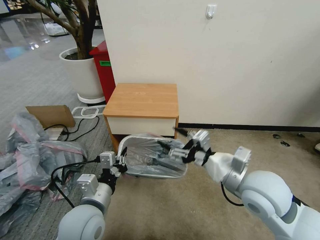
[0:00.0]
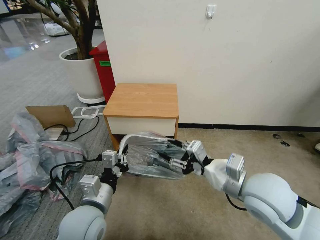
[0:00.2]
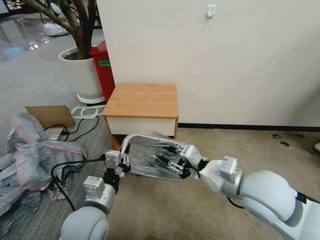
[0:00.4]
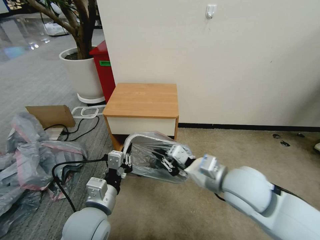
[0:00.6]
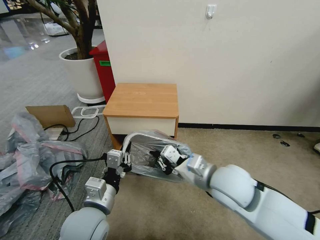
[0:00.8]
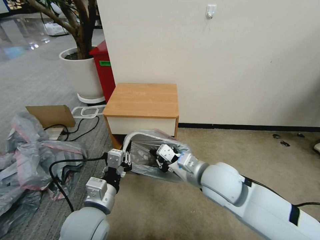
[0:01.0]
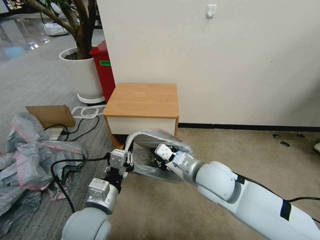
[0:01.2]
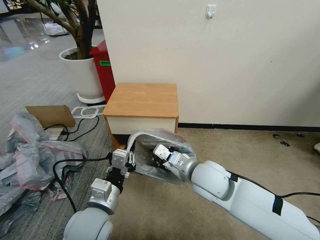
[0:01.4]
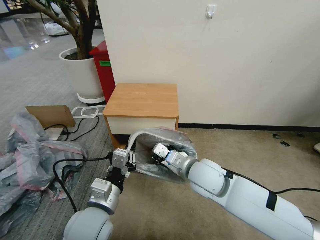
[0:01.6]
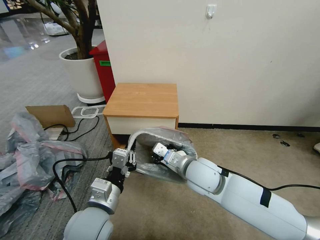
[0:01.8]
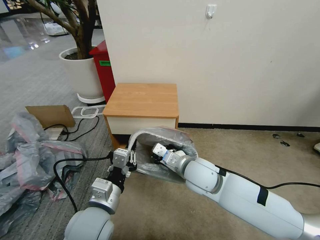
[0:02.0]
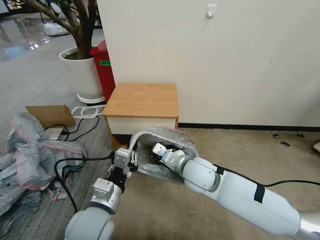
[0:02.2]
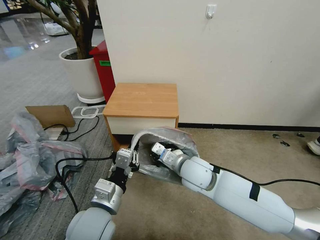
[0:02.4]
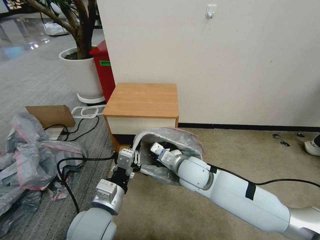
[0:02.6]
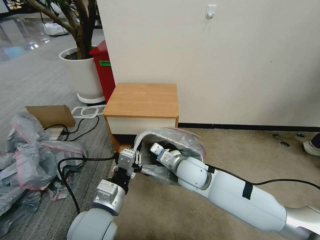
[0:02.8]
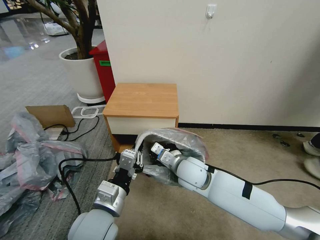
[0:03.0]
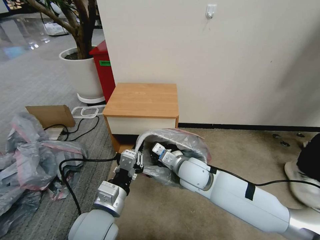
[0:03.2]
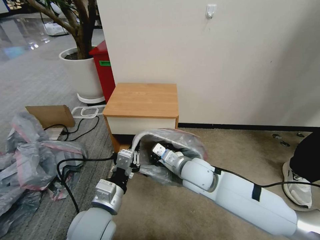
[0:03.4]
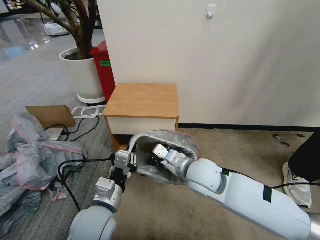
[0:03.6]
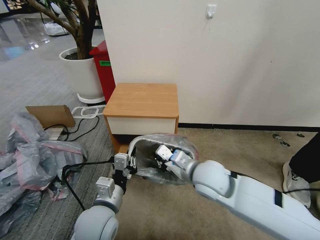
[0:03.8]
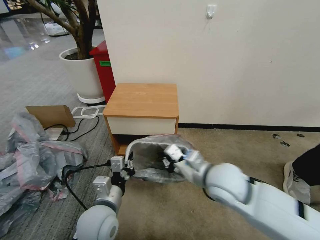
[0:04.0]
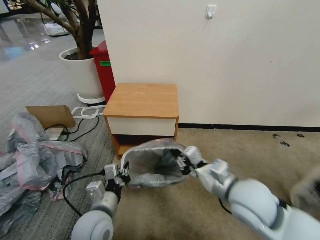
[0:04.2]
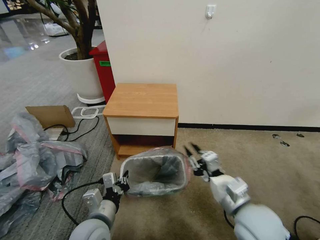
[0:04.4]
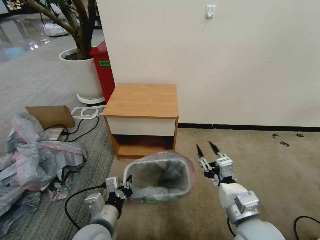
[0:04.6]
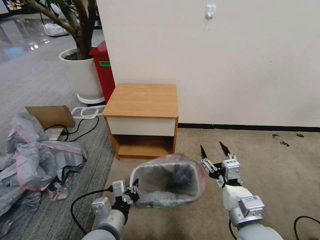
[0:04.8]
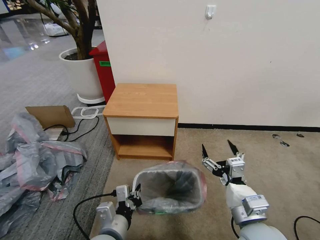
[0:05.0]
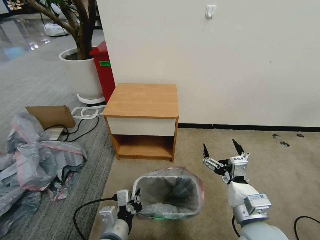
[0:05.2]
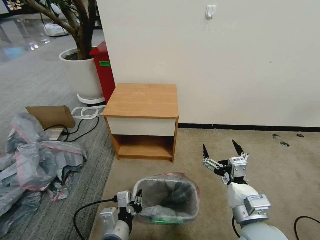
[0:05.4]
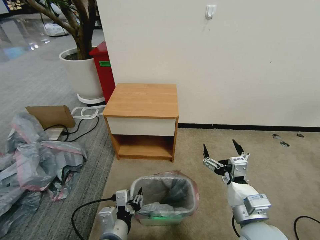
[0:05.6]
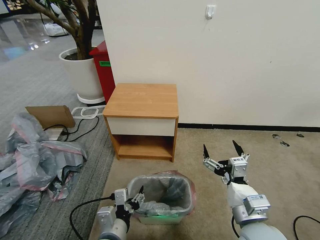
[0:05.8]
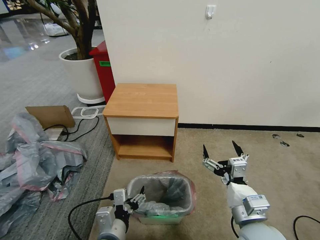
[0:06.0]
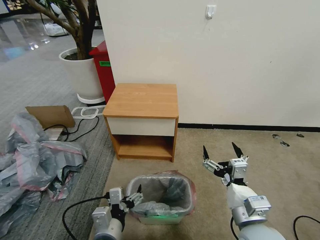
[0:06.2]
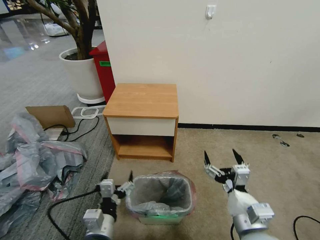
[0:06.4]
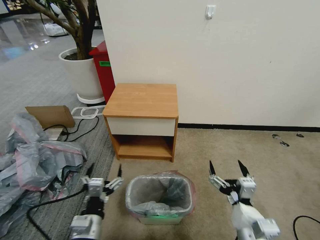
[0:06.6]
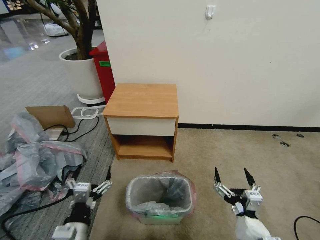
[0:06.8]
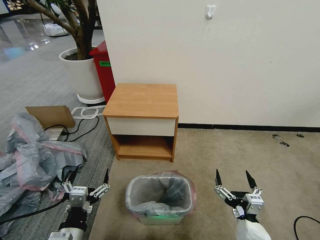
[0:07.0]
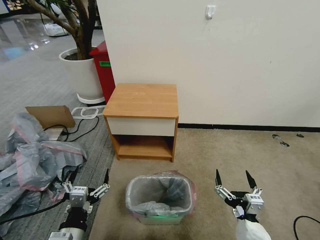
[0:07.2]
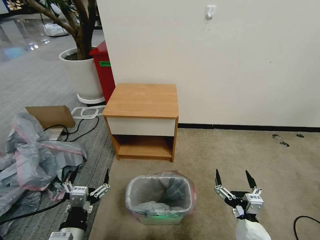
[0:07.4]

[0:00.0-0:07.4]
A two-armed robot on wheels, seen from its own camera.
Task of the whole recording: Pick up the garbage bag from the table and place it over the trash can.
0:00.0 to 0:01.4: The right gripper is displaced to the left by some 10 cm, and closes up.
0:01.4 to 0:03.0: The right gripper is displaced downward by approximately 5 cm.
0:03.0 to 0:04.4: The left gripper is displaced downward by approximately 5 cm. Meanwhile the right gripper moves backward and to the right, approximately 20 cm.
0:04.4 to 0:06.0: The right gripper opens up, while the left gripper moves roughly 5 cm, and opens its fingers.
0:06.0 to 0:07.4: The left gripper is displaced to the left by roughly 10 cm; the right gripper heads downward and backward, covering approximately 10 cm.

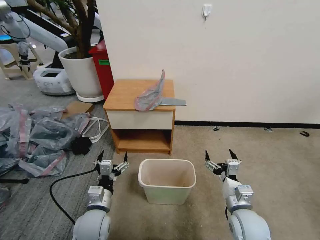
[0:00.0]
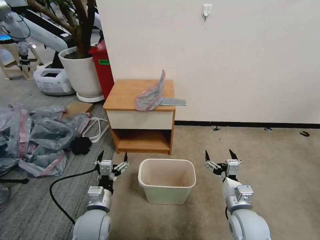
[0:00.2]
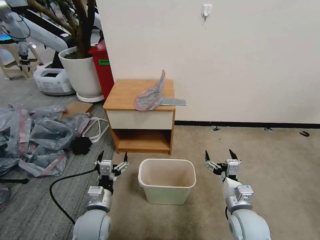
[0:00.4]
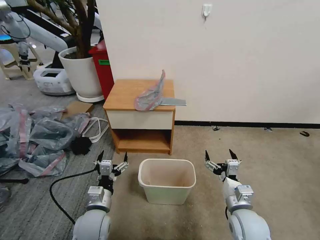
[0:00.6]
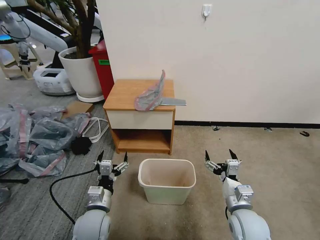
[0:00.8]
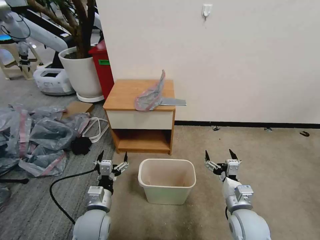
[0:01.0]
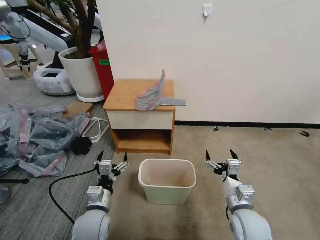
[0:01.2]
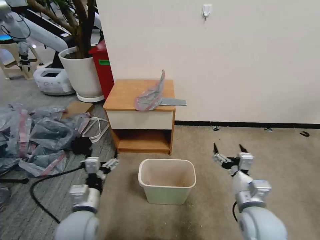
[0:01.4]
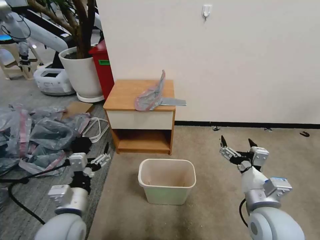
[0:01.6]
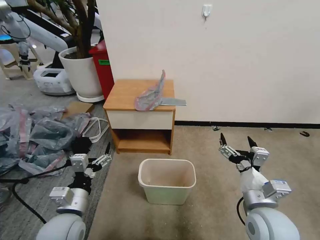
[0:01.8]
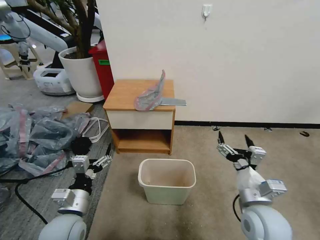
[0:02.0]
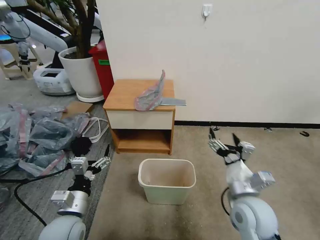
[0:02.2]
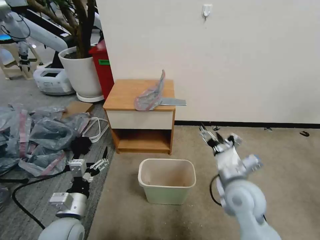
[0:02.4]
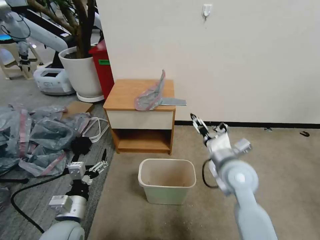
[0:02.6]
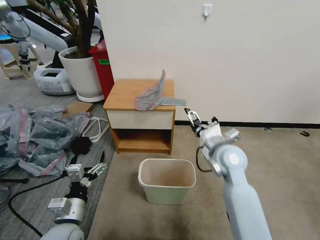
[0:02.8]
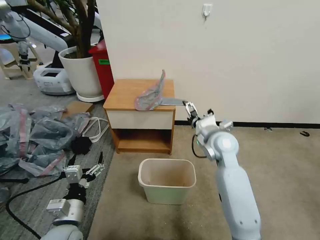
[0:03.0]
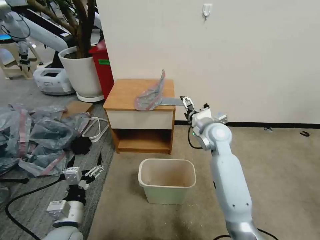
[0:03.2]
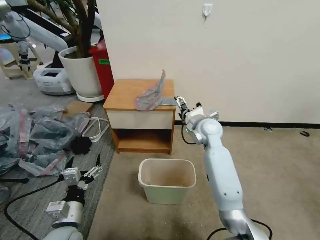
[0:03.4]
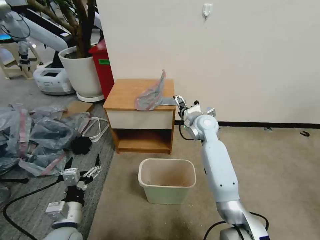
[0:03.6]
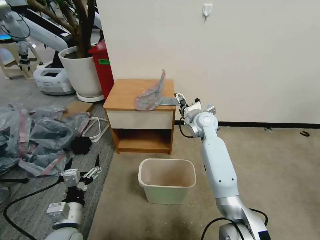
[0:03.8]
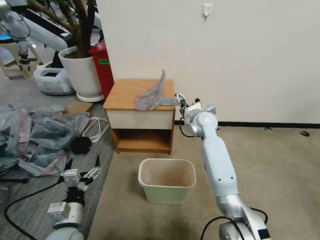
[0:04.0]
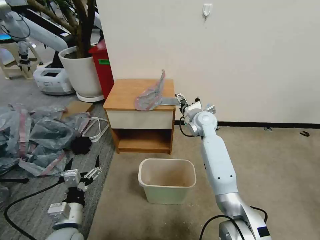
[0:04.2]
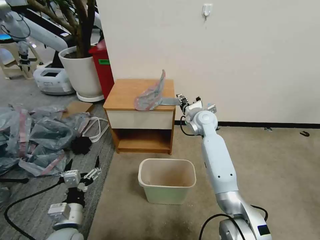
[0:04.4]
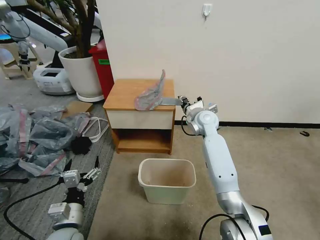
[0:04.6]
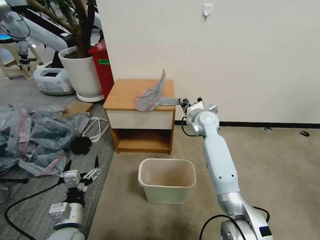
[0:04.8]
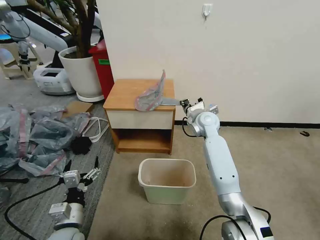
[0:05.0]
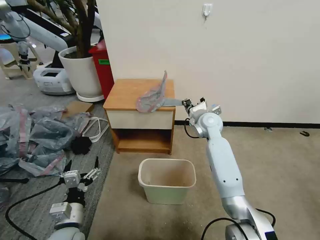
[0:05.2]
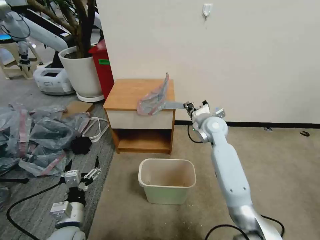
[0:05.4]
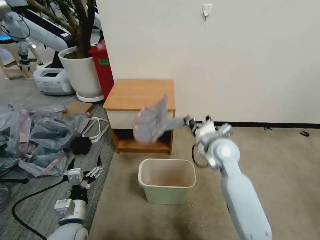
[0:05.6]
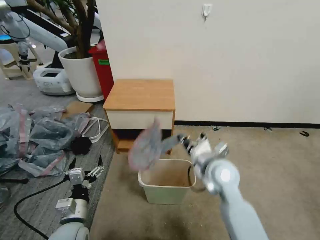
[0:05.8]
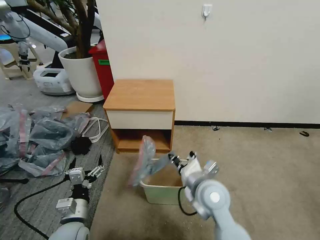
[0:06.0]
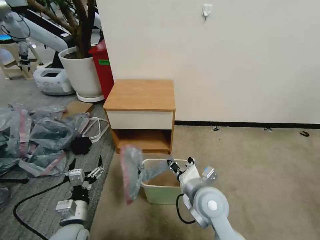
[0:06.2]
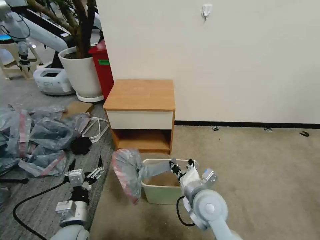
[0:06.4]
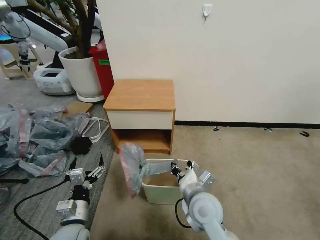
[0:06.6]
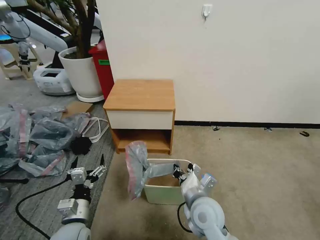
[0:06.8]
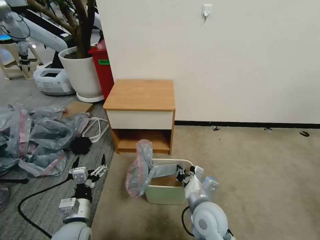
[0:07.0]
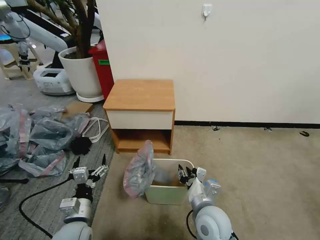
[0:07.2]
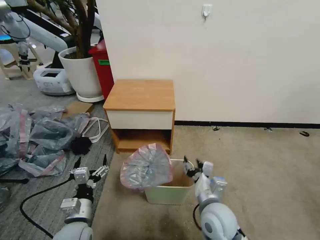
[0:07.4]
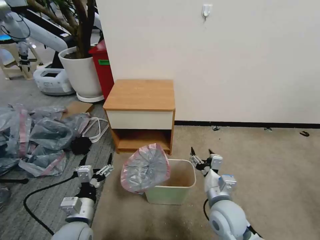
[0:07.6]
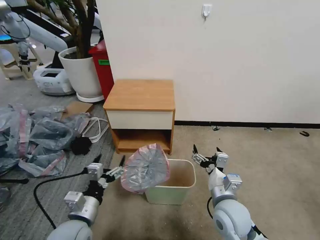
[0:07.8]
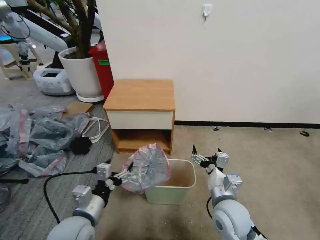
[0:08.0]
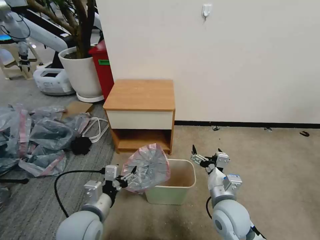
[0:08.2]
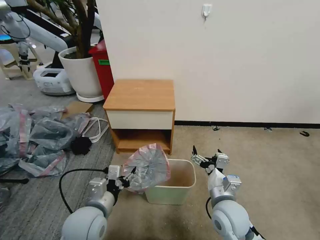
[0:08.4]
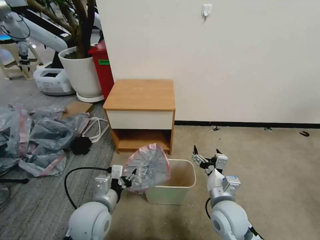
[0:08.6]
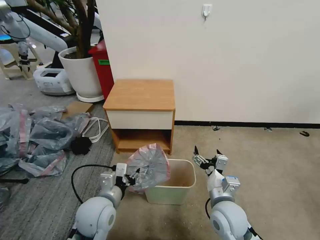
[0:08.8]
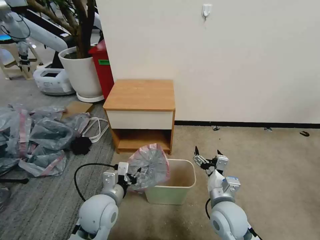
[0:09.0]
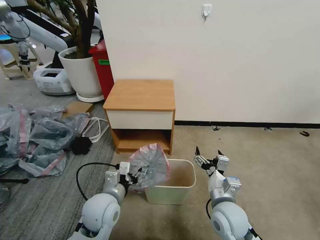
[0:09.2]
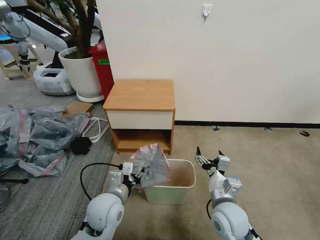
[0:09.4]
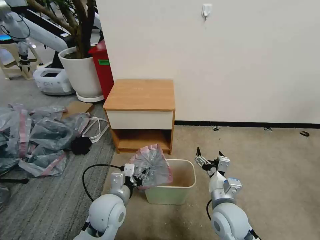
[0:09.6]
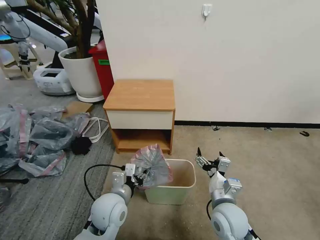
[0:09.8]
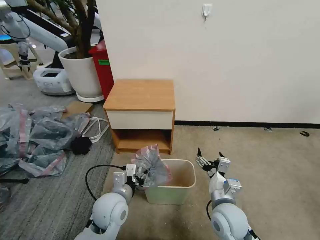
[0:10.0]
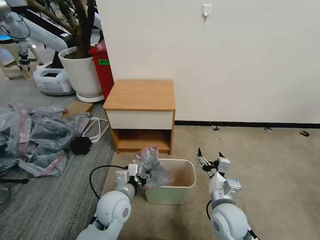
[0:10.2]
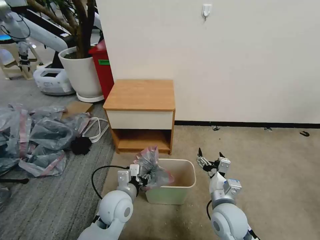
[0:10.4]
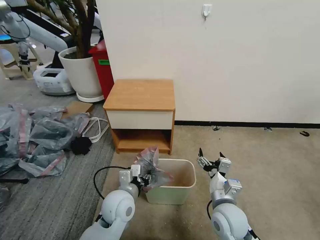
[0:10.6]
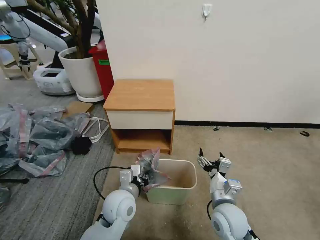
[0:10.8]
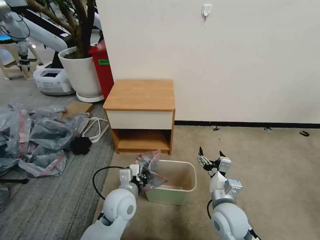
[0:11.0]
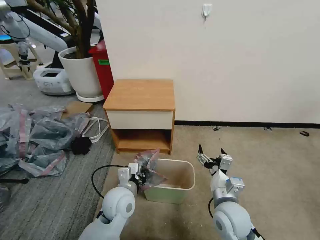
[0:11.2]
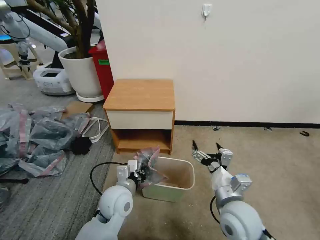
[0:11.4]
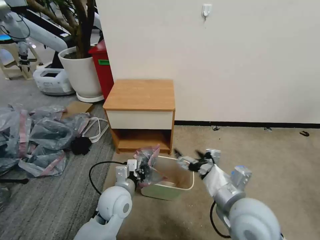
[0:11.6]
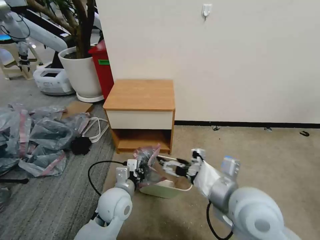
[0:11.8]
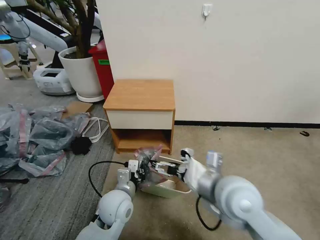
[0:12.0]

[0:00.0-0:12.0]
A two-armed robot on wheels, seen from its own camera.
Task of the whole recording: Pick up the garbage bag from the table and place it over the trash can.
0:01.6 to 0:03.0: The left gripper travels downward by some 5 cm. Meanwhile the right gripper heads forward, covering approximately 25 cm.
0:03.0 to 0:04.4: The right gripper goes approximately 10 cm forward.
0:04.4 to 0:06.0: The right gripper goes approximately 25 cm backward, and closes its fingers.
0:06.0 to 0:07.6: The right gripper is displaced downward and to the right by some 5 cm, and opens.
0:07.6 to 0:09.0: The left gripper travels to the right and forward by roughly 10 cm, and closes up.
0:09.0 to 0:10.4: The left gripper ends up about 5 cm from where it was.
0:10.4 to 0:12.0: The left gripper closes up, while the right gripper goes about 15 cm upward.

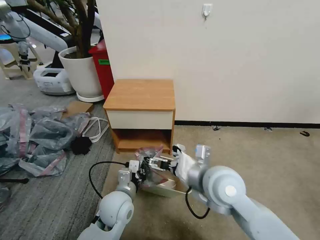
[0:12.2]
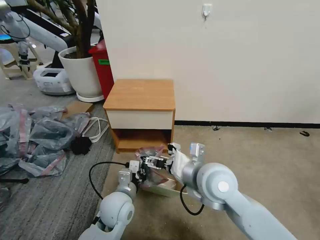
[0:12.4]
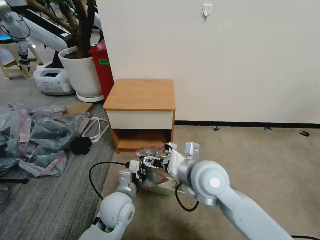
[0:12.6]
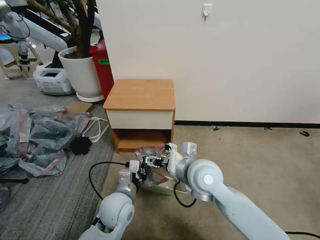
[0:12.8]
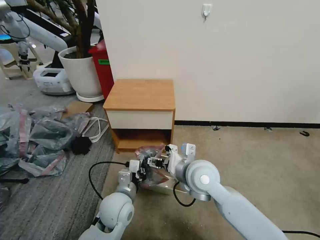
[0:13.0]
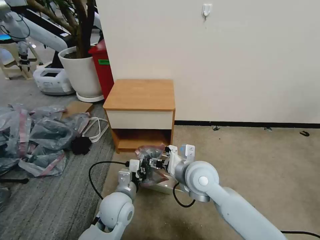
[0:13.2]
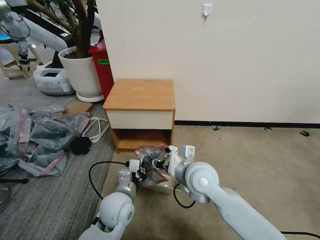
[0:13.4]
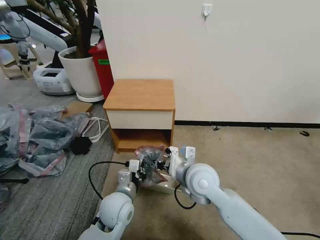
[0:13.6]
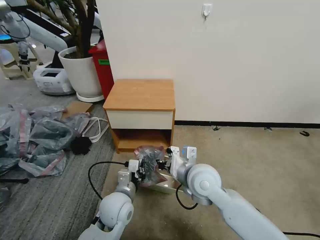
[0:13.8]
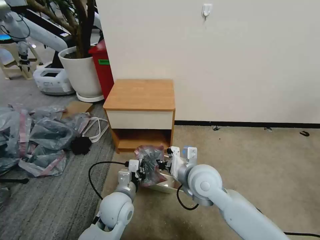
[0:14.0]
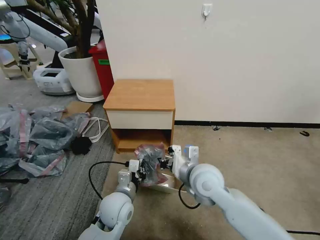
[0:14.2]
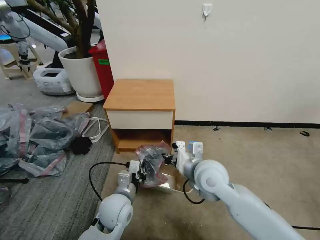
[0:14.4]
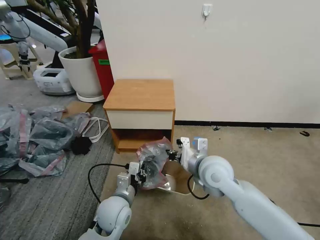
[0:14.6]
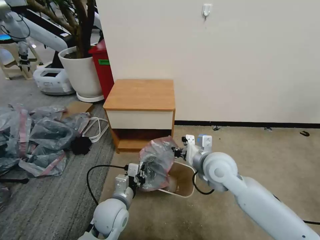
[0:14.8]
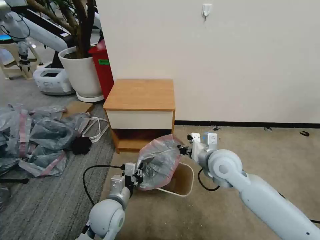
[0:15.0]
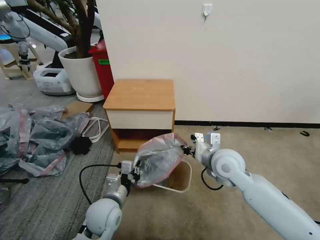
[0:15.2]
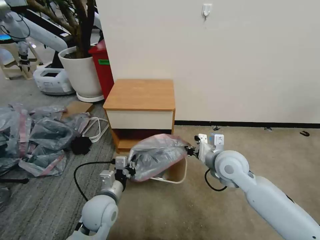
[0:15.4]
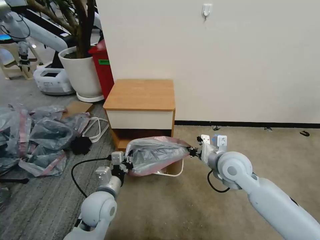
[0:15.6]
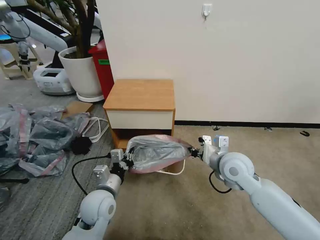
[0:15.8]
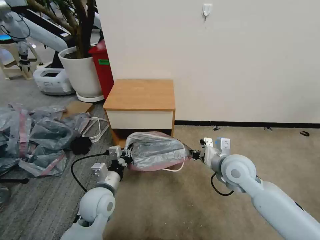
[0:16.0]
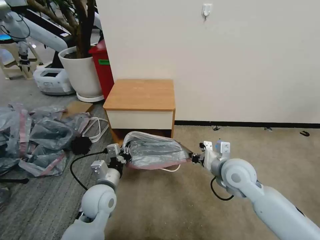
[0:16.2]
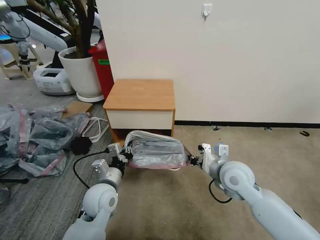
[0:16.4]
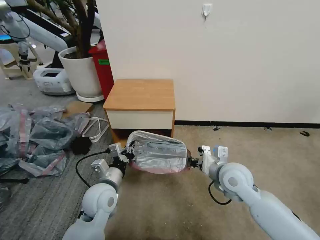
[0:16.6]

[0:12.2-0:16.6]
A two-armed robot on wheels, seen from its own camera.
Task of the whole recording: Pick up the garbage bag from the table and place it over the trash can.
0:12.2 to 0:13.6: The right gripper heads downward, covering some 5 cm, and closes up.
0:13.6 to 0:15.2: The right gripper travels to the right by roughly 10 cm.
